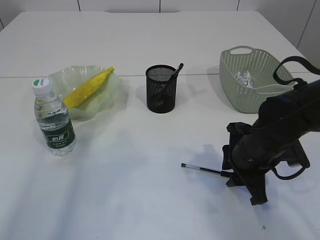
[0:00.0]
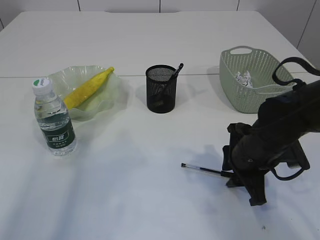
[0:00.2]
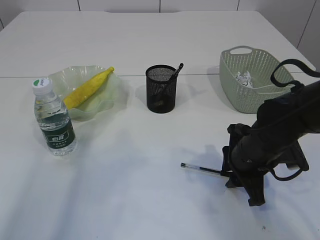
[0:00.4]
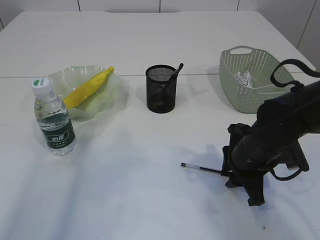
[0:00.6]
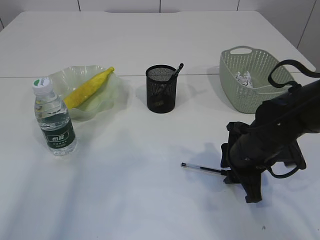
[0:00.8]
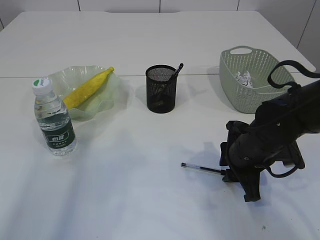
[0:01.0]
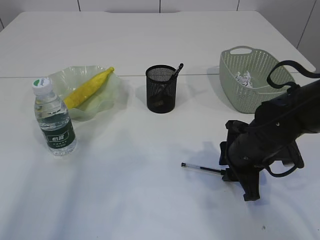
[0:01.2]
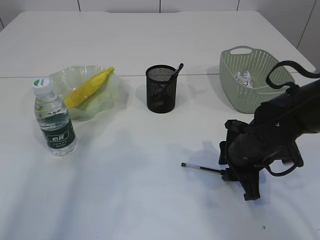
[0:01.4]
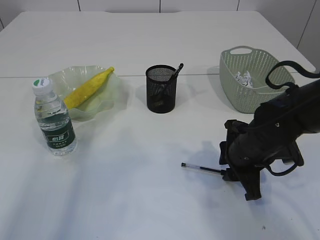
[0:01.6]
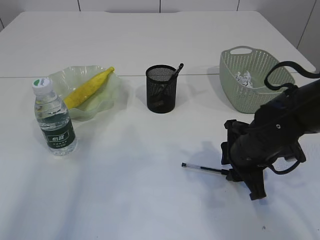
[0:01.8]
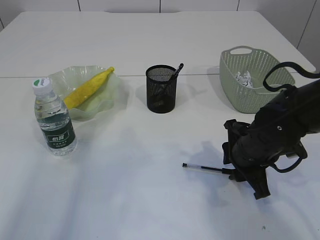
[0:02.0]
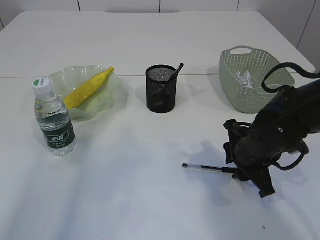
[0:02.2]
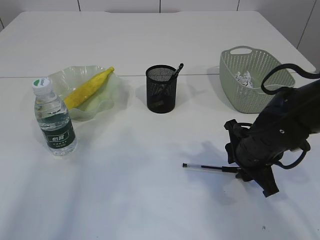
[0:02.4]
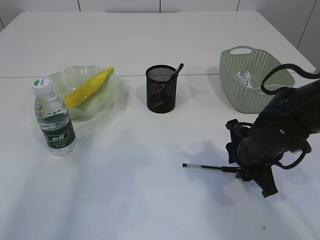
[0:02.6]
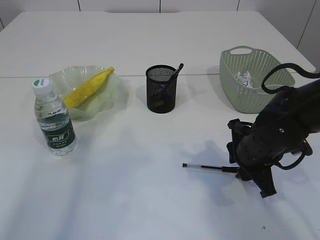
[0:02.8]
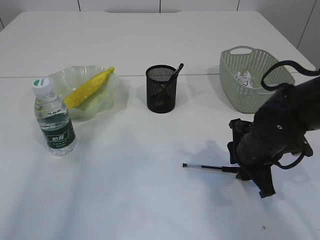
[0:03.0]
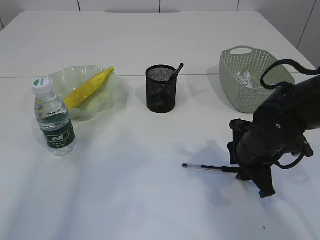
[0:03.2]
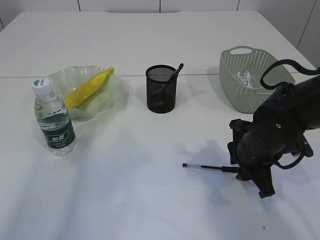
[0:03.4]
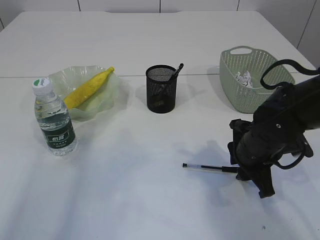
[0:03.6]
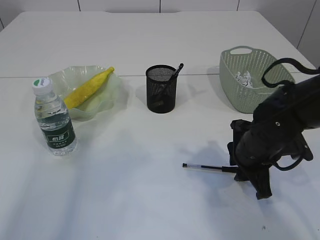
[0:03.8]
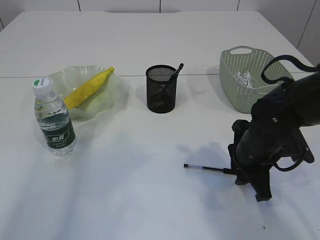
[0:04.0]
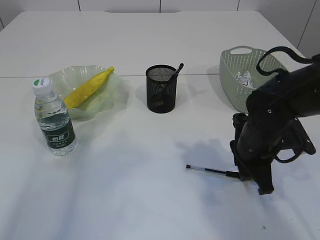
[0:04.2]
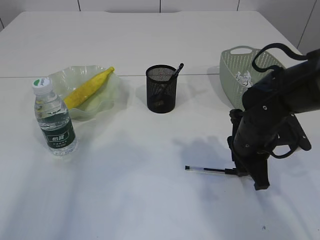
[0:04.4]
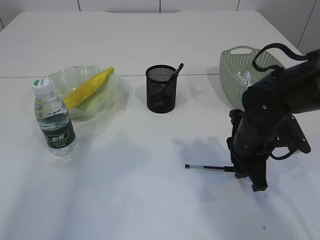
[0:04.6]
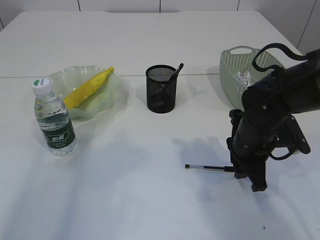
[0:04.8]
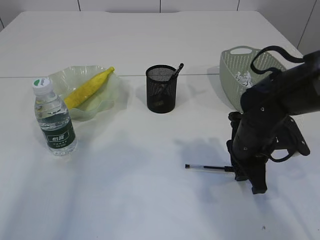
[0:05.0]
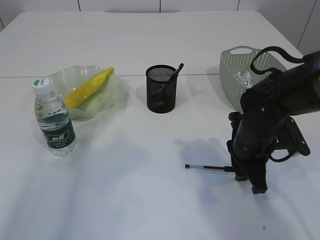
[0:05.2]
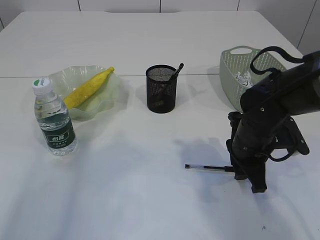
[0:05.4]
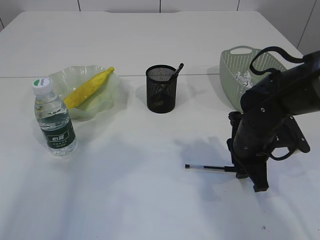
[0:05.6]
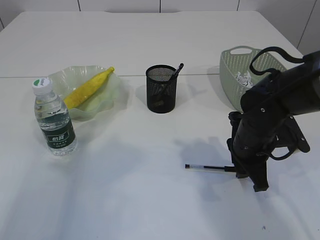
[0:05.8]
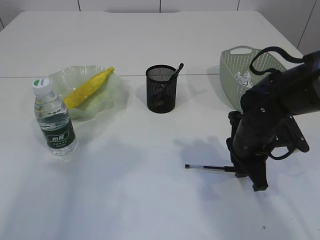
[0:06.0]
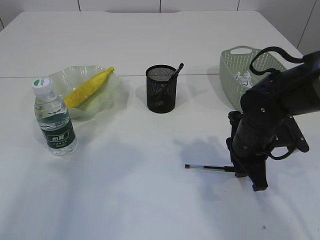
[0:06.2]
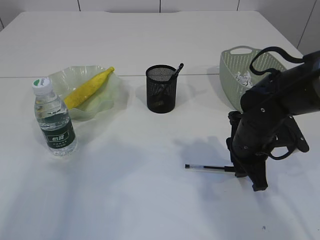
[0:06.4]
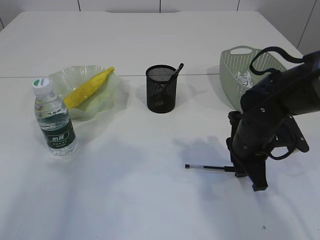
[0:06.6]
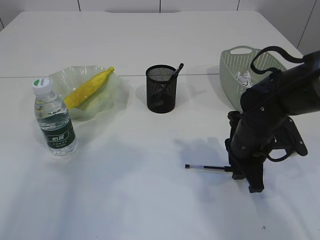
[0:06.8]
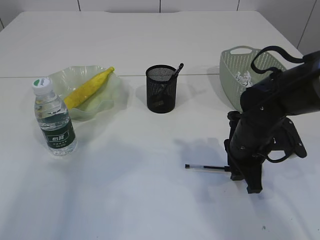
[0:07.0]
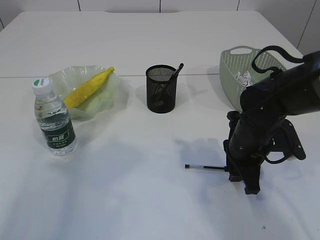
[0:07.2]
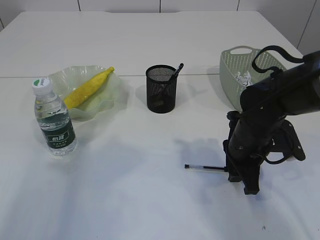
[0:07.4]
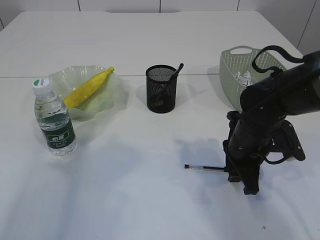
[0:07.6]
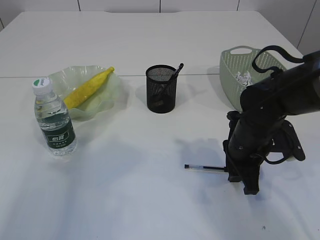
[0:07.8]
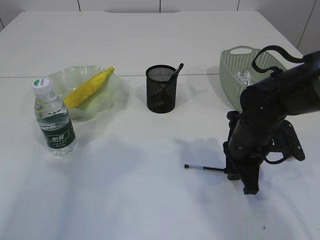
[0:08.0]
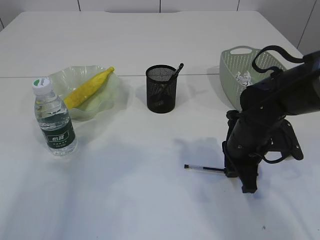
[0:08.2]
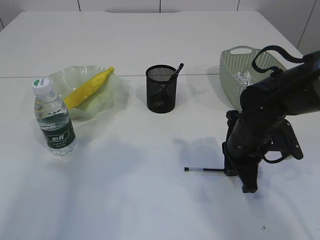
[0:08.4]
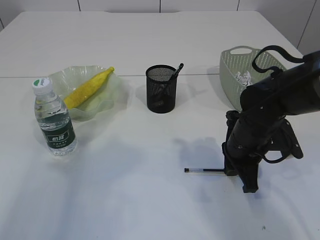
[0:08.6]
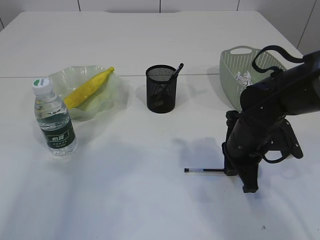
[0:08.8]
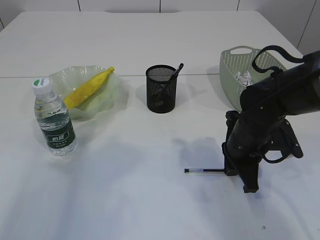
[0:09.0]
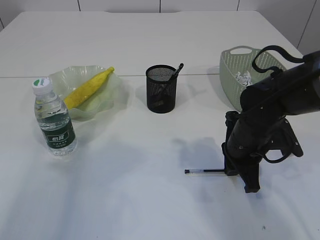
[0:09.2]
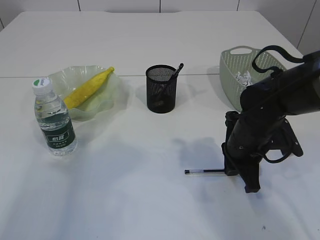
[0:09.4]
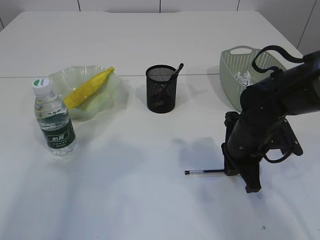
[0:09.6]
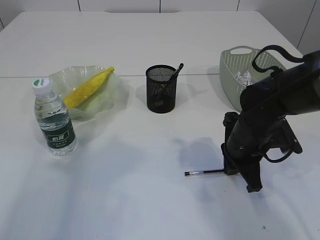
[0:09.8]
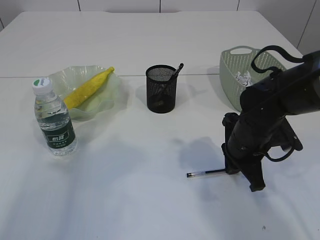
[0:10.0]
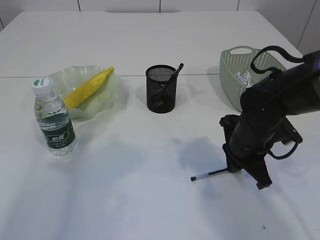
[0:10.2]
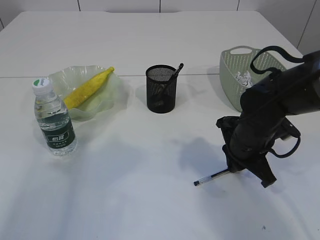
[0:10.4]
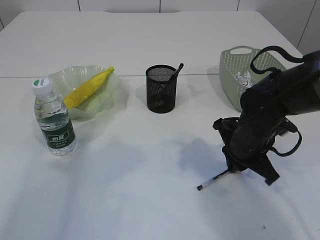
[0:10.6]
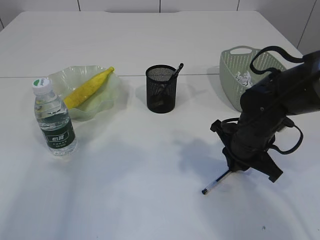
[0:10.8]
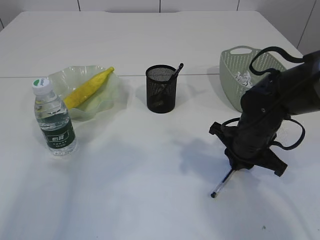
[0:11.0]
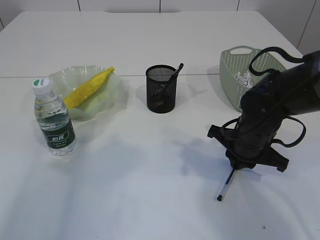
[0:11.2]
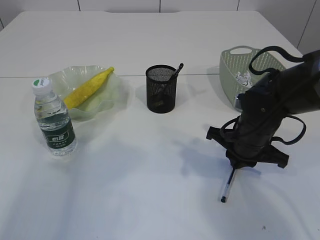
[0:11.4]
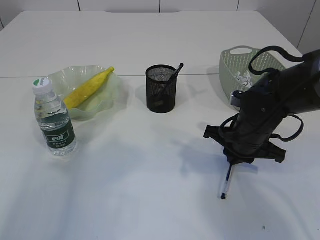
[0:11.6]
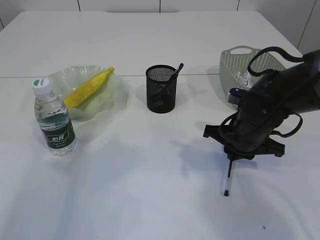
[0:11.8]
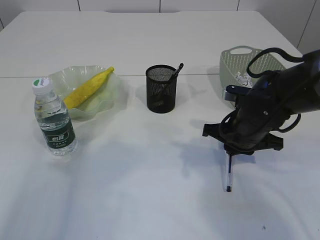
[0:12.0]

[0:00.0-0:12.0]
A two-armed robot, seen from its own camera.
0:00.0 to 0:01.6: Neither gripper changes place.
0:01.6 to 0:07.6: The grippers make only small movements.
0:07.6 to 0:09.0: The right gripper closes up.

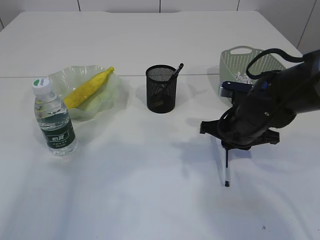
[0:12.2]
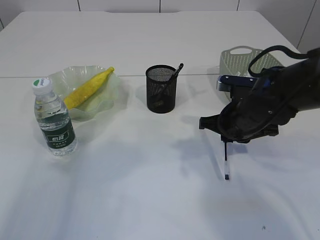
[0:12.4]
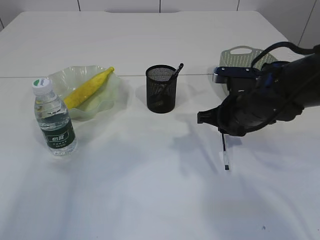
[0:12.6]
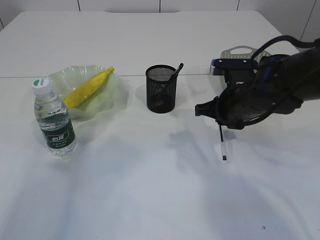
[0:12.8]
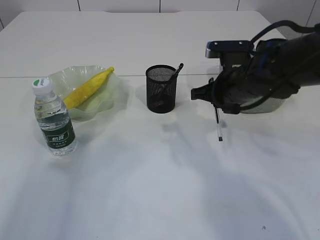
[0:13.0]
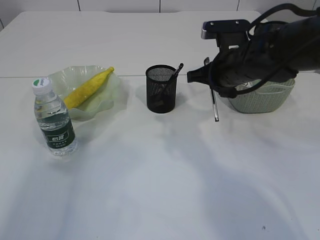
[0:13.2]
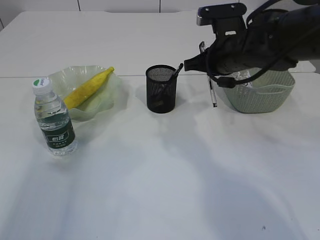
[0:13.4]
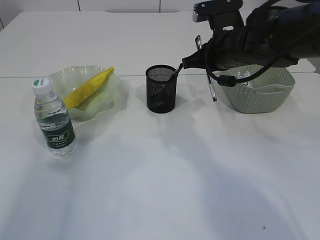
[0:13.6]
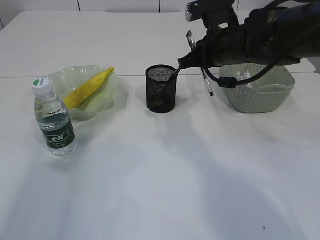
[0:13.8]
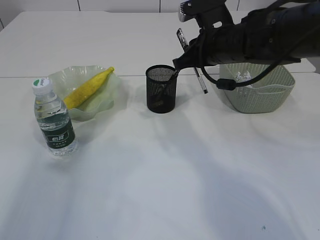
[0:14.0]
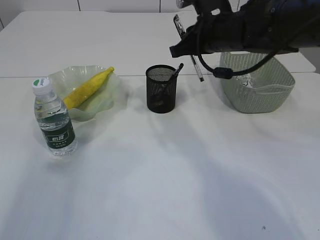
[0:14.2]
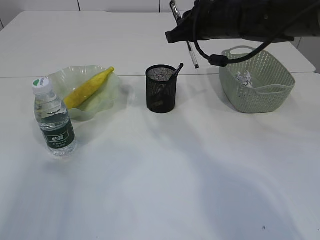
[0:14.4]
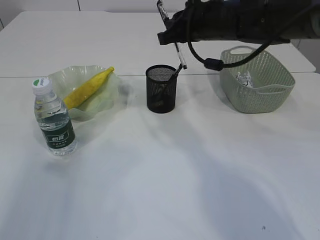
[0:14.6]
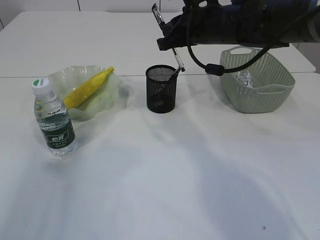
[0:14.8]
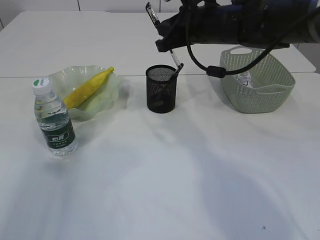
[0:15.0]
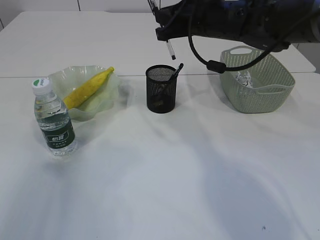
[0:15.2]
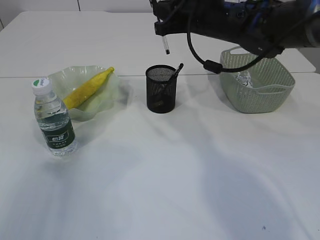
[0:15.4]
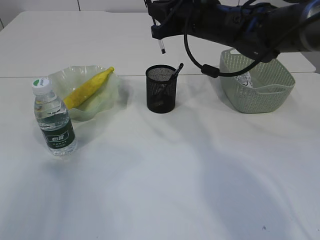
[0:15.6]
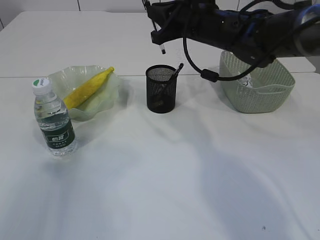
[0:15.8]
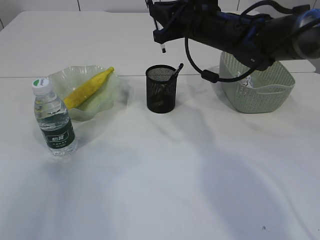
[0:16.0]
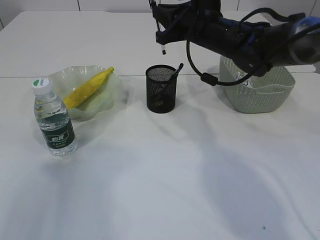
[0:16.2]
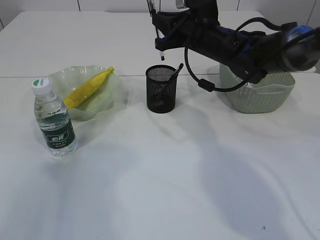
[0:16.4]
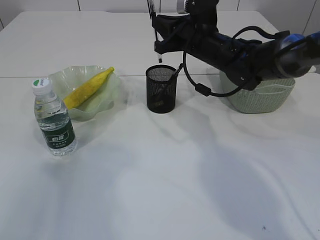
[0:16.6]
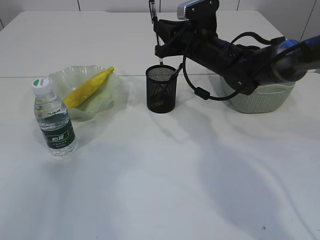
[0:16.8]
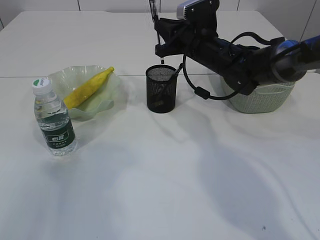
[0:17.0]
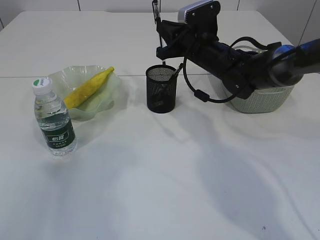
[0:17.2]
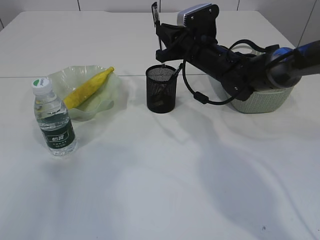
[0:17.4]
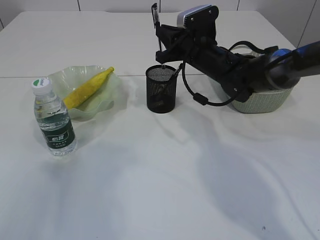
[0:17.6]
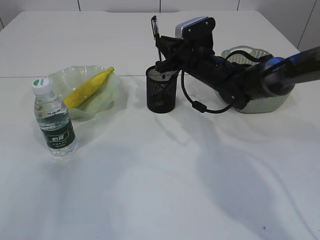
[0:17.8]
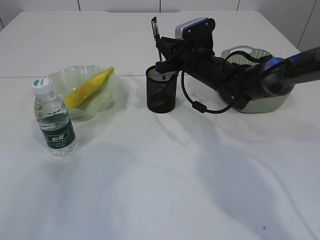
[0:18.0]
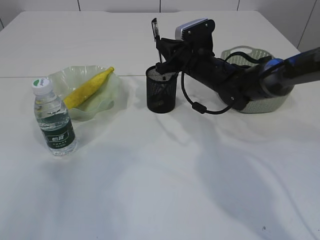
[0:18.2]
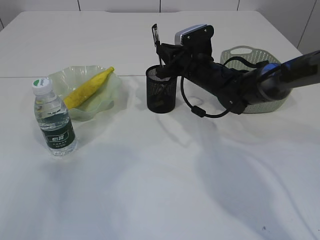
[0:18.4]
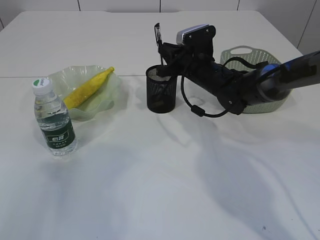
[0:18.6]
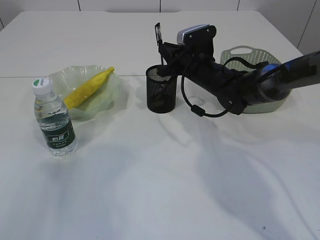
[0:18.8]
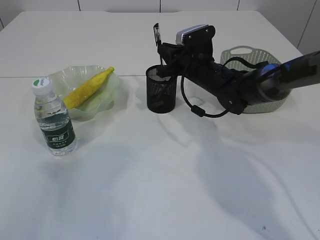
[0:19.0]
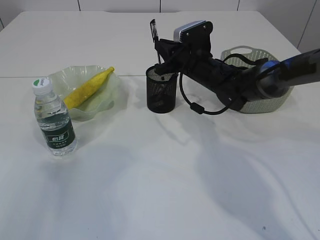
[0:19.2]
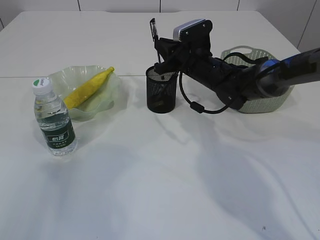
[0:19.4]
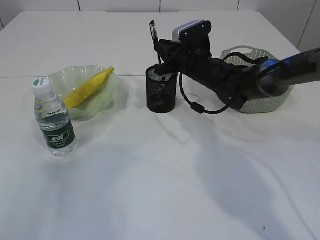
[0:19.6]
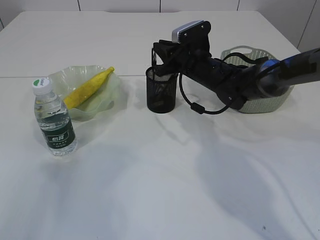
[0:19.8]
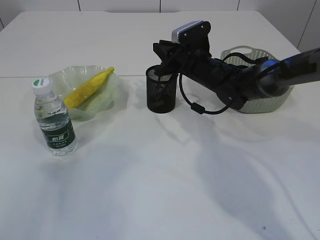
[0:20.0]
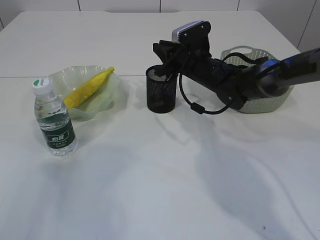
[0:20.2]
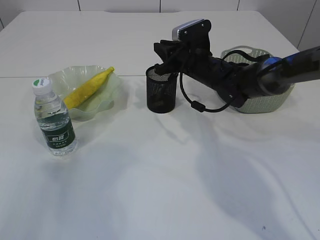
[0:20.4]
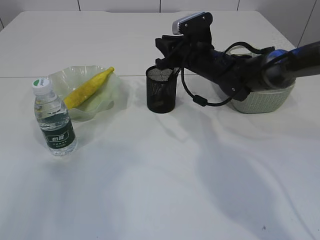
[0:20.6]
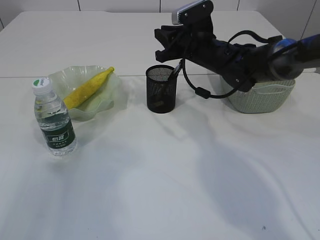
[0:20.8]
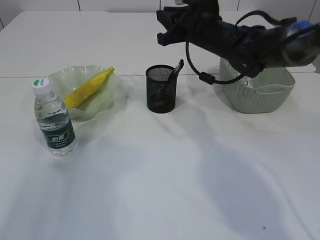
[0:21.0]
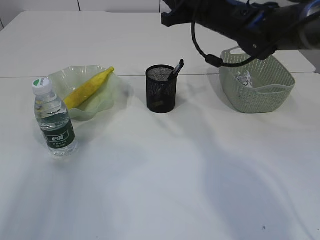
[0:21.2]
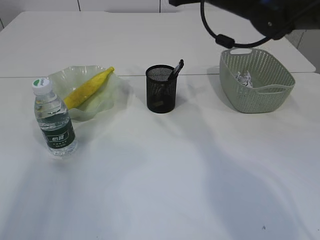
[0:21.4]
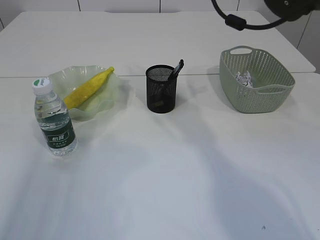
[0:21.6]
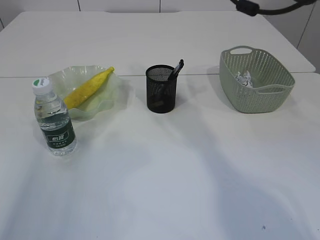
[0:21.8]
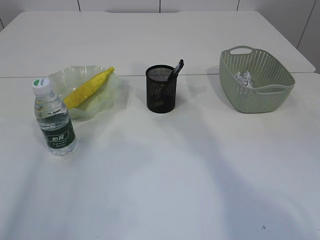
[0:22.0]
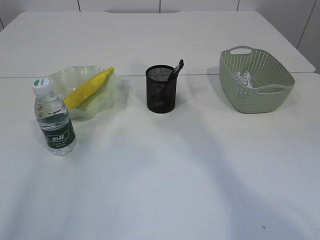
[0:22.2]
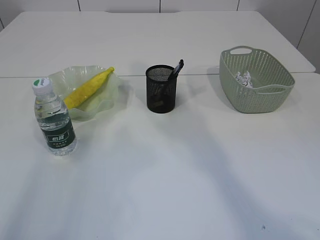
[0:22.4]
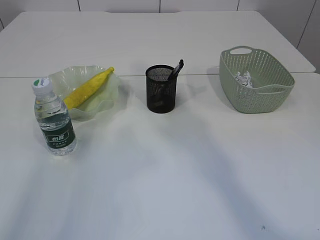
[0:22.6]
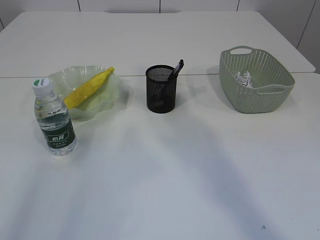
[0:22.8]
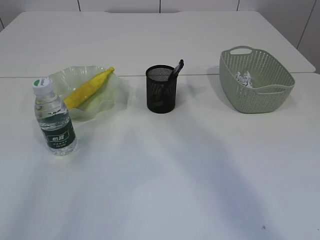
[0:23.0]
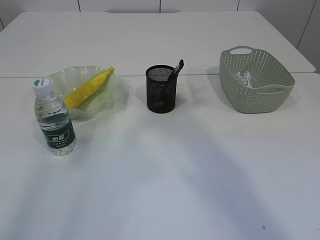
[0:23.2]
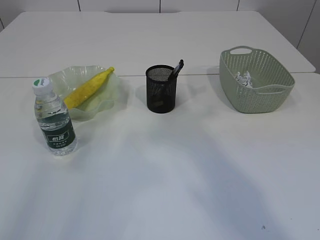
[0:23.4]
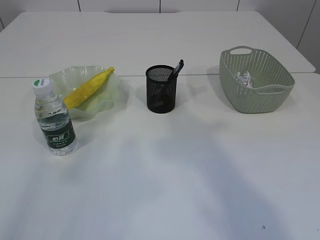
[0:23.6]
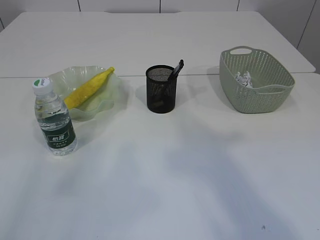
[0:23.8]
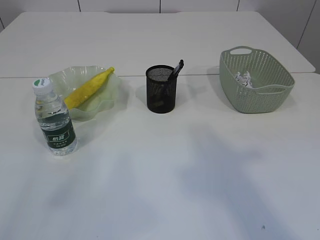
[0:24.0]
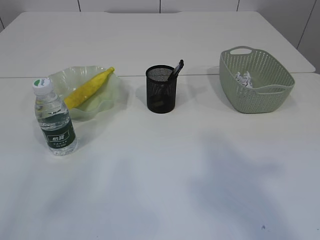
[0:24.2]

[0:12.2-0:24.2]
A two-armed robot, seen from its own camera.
Step, 0:12.8 to 0:20.8: Place the pen into the pen holder.
0:12.2 to 0:13.8: The right gripper travels upward and forward by about 15 cm.
0:13.8 to 0:15.2: The right gripper ends up about 5 cm from where it was.
0:15.2 to 0:16.6: The right gripper travels downward by about 5 cm.
0:16.6 to 0:18.2: The right gripper travels downward by some 5 cm.
0:18.2 to 0:19.8: The two grippers keep their place.
0:19.8 to 0:21.2: The right gripper goes approximately 10 cm upward.
0:21.2 to 0:22.6: The right gripper moves upward and backward, some 25 cm.
